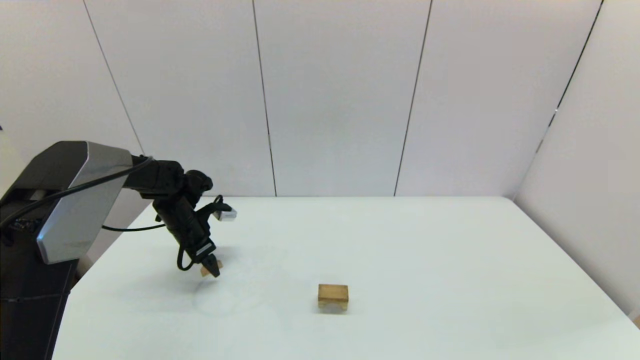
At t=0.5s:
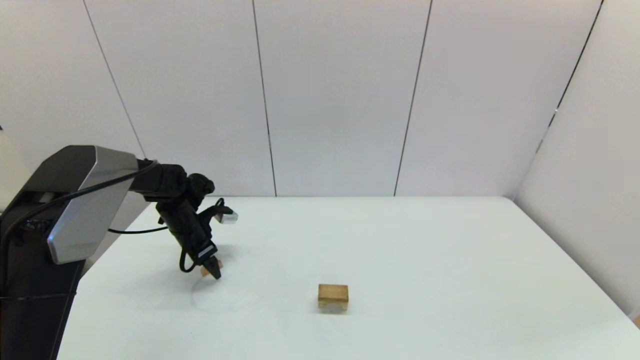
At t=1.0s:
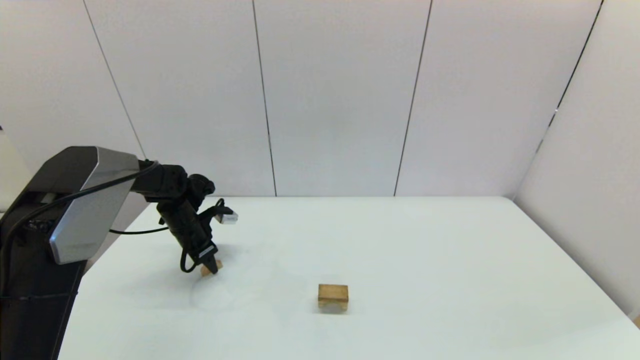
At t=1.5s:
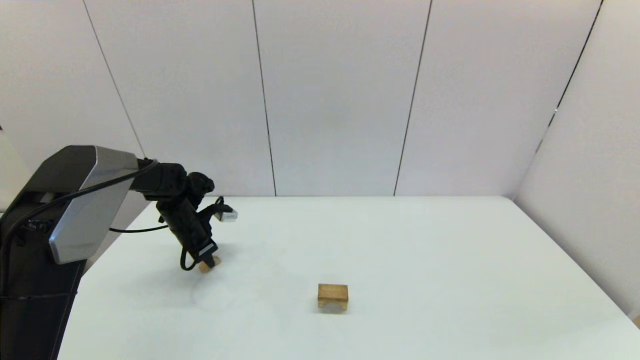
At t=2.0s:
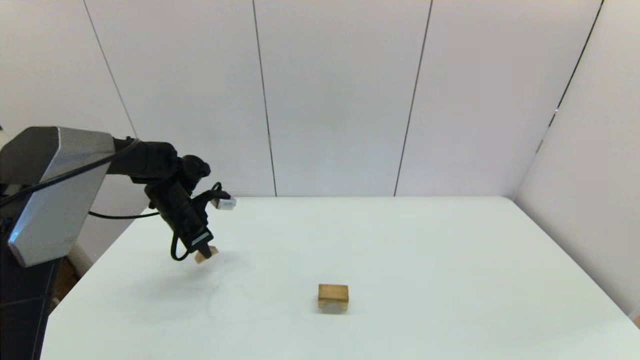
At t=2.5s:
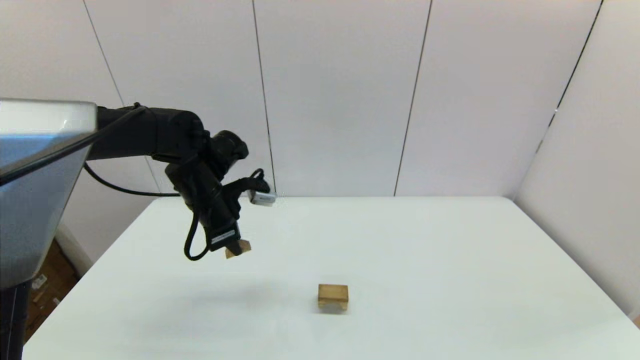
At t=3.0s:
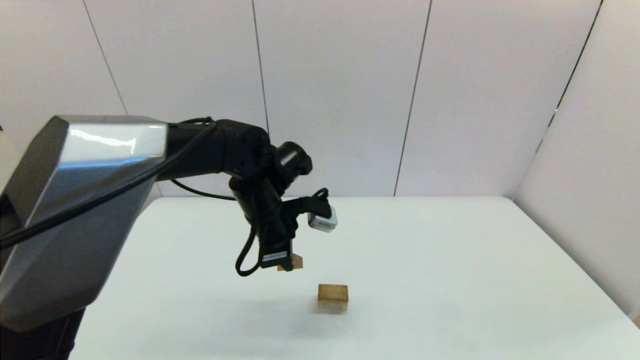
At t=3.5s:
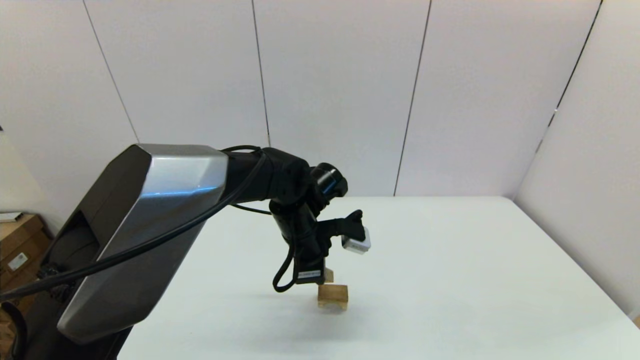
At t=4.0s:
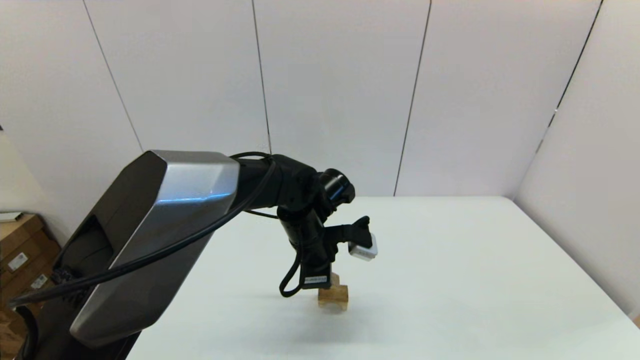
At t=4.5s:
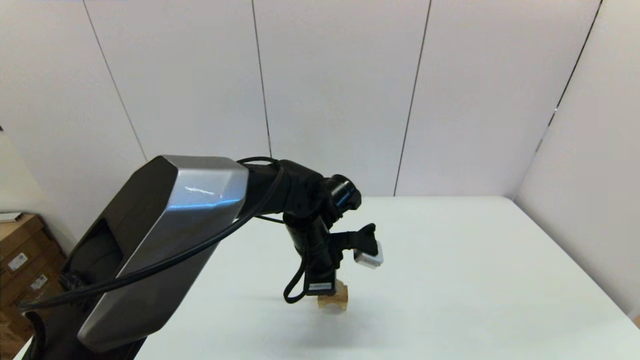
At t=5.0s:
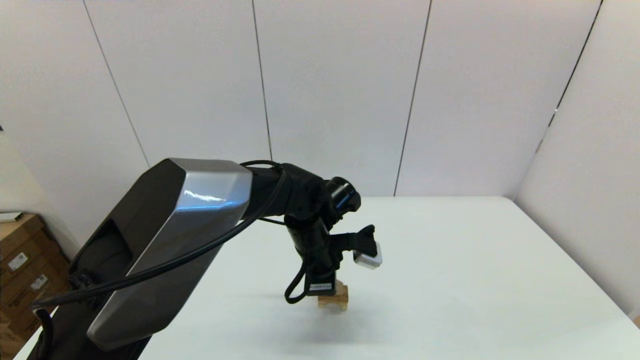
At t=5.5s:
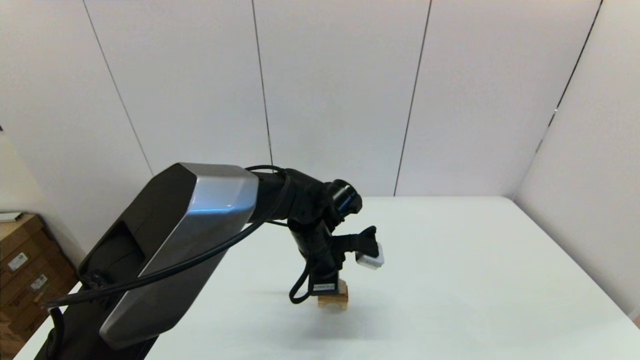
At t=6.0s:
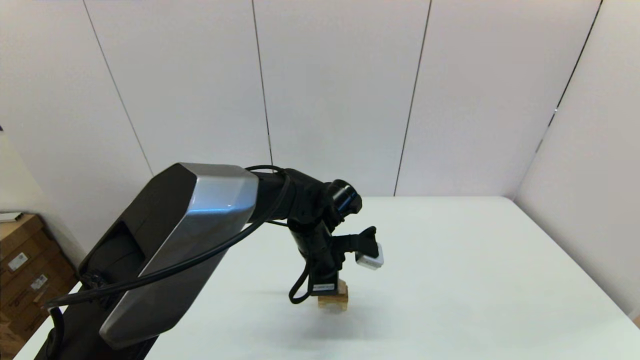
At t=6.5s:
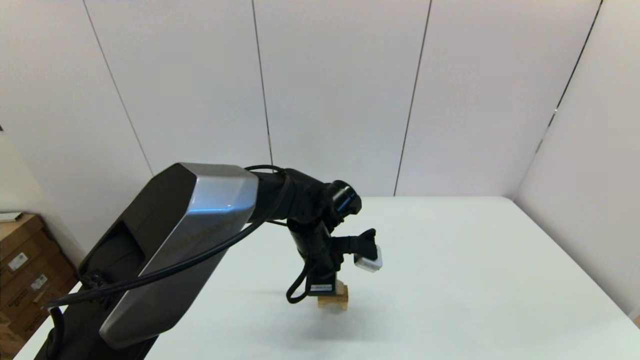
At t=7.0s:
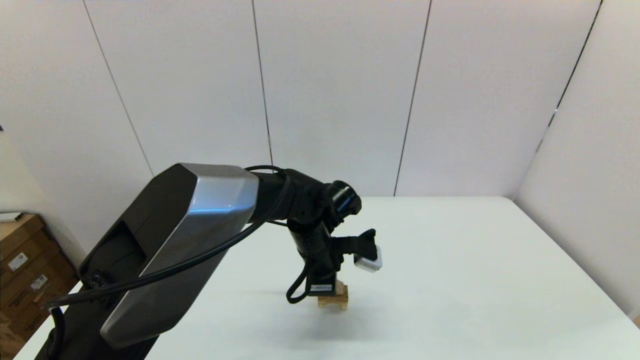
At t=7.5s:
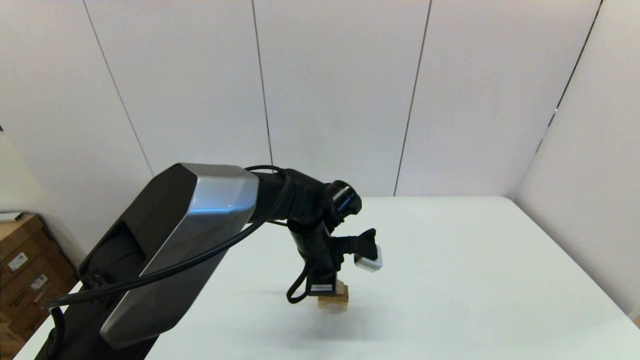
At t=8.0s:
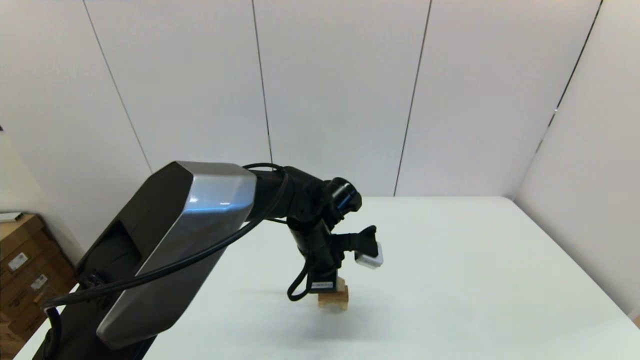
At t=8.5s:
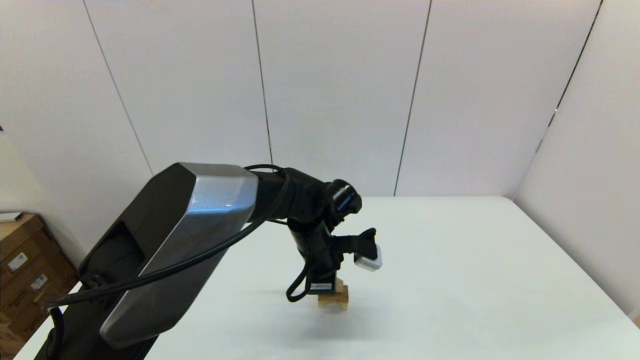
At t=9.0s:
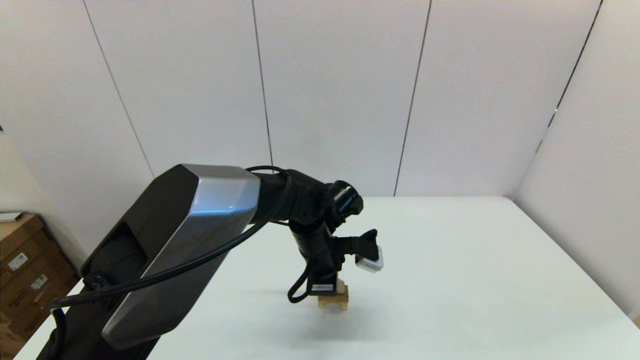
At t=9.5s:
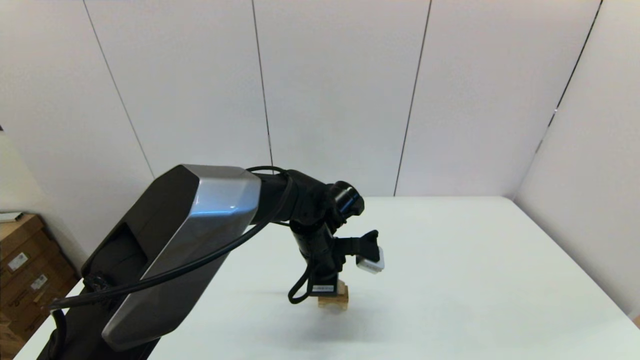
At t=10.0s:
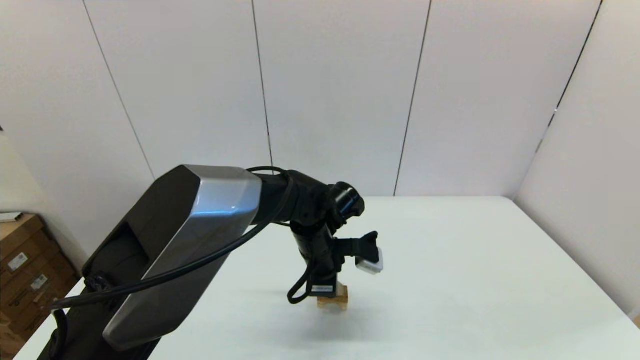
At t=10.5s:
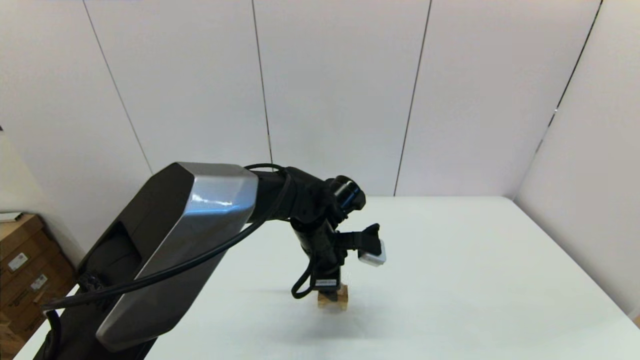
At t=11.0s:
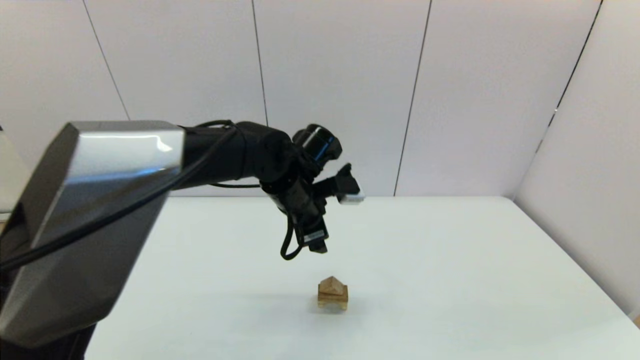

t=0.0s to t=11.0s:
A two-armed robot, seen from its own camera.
Task of the whole recording: place the arched building blocks in the center of the table, set up the rectangular building blocks, and then set up the triangular building blocks.
t=0.0s to t=2.0s: The left gripper shifts approximately 5 cm upward, and closes.
t=2.0s to t=3.5s: The left gripper heads to the right, covering roughly 25 cm.
t=3.5s to t=5.5s: There are only small adjustments of the grippers.
t=5.5s to t=9.0s: Neither gripper changes place.
t=9.0s to t=11.0s: The left gripper moves upward, roughly 10 cm, and opens its fingers.

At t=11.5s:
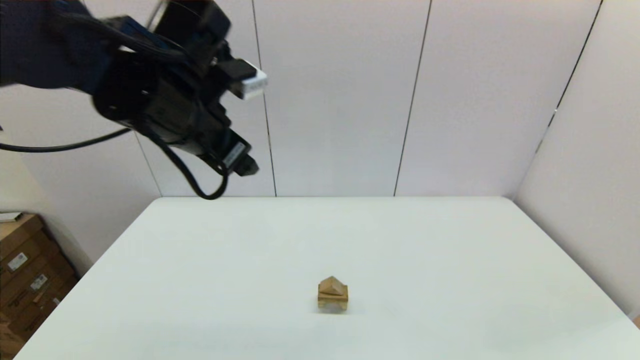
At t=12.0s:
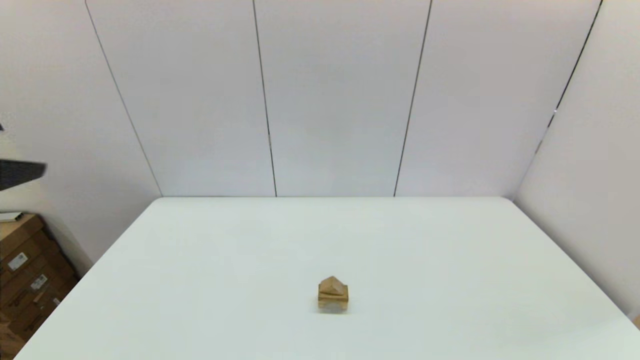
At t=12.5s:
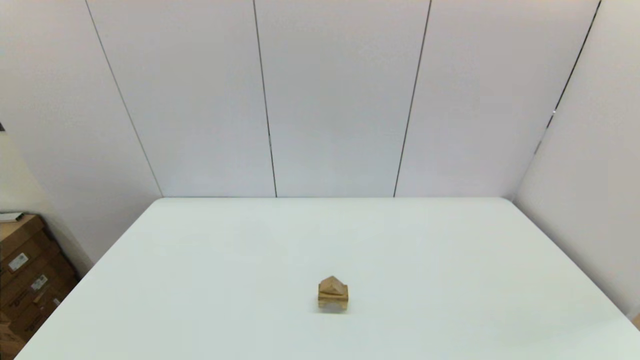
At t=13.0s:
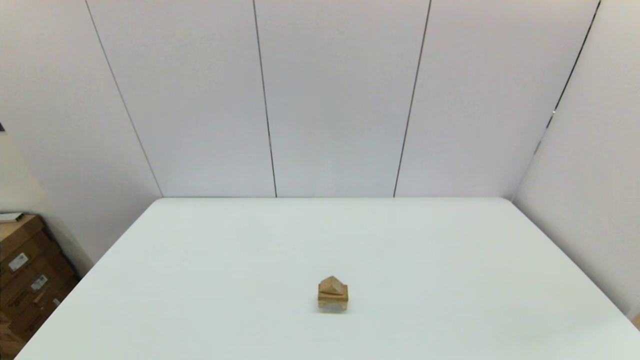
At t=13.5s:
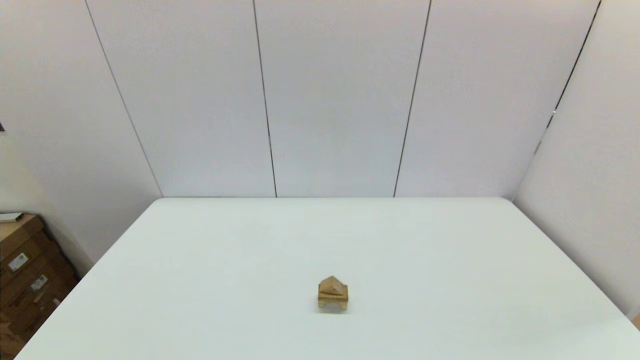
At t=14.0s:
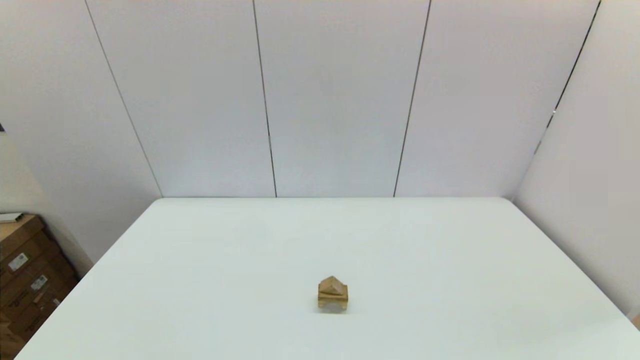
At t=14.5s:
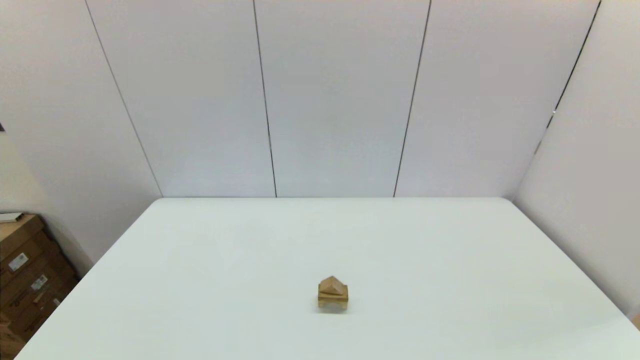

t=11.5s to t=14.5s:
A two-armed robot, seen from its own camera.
Task of the whole recording: place the arched building blocks in the center of the table, set up the rectangular building blocks, and then set up the triangular building blocks.
t=11.5s to t=13.0s: The left gripper shifts about 40 cm backward and to the left.
